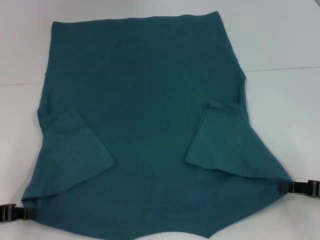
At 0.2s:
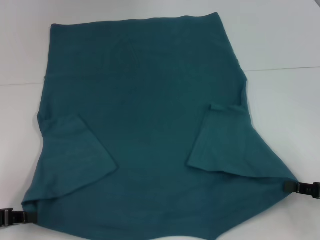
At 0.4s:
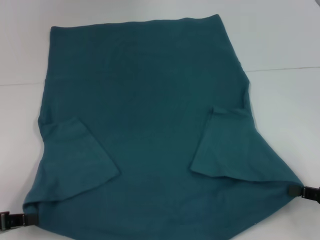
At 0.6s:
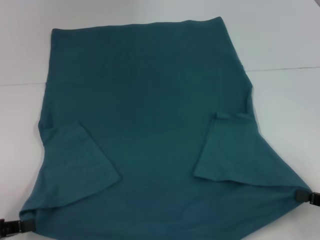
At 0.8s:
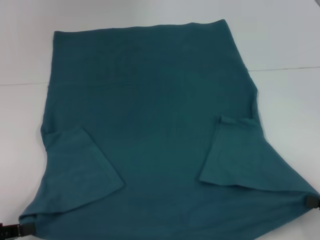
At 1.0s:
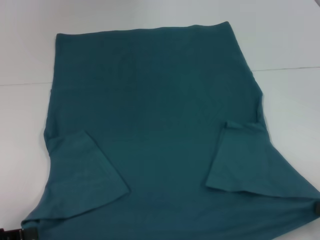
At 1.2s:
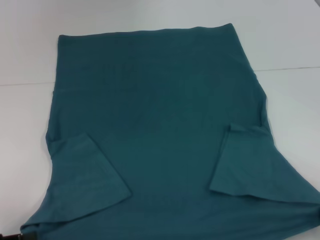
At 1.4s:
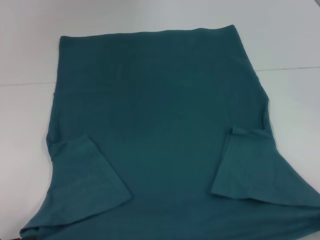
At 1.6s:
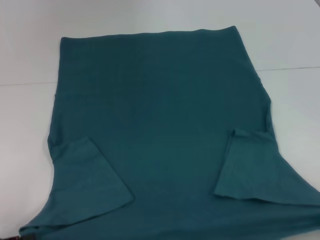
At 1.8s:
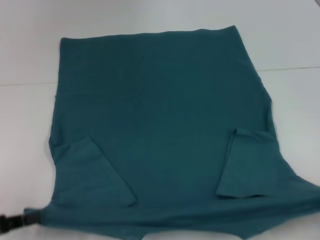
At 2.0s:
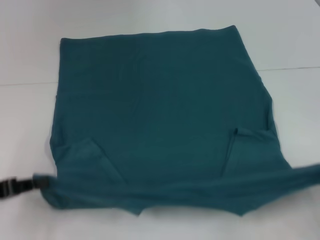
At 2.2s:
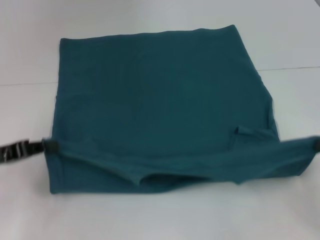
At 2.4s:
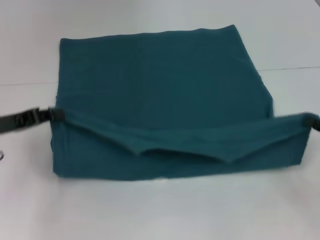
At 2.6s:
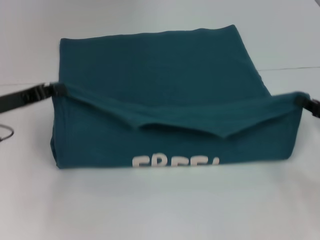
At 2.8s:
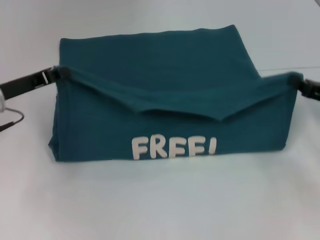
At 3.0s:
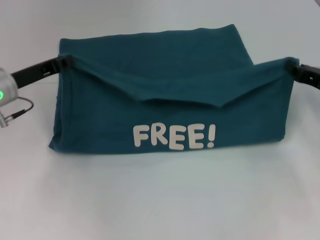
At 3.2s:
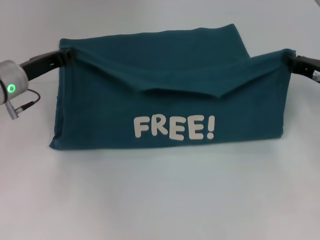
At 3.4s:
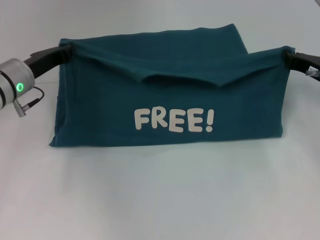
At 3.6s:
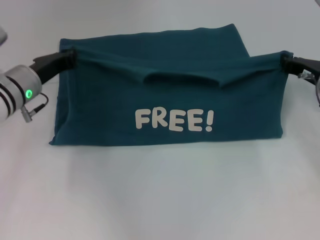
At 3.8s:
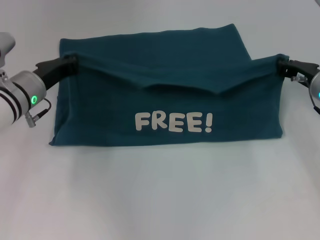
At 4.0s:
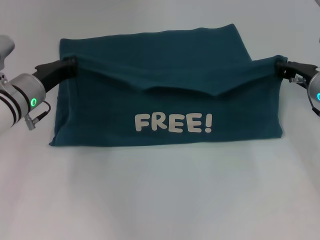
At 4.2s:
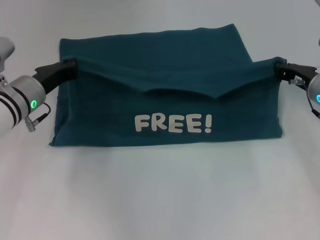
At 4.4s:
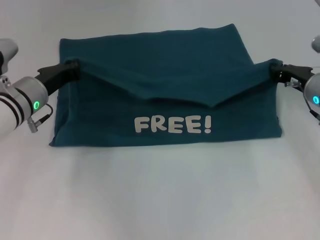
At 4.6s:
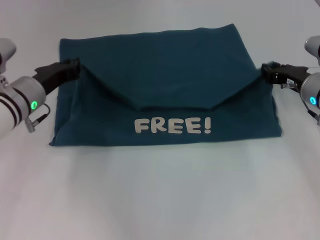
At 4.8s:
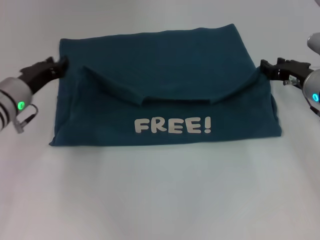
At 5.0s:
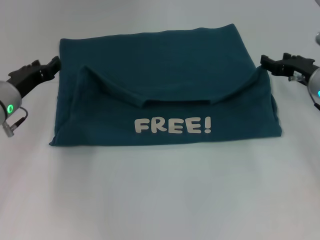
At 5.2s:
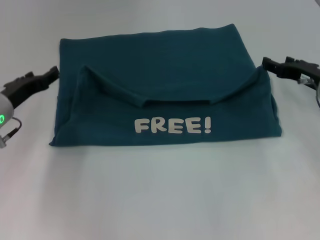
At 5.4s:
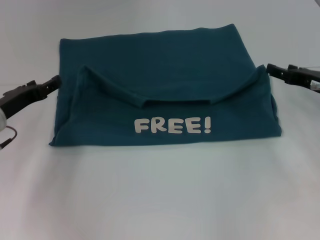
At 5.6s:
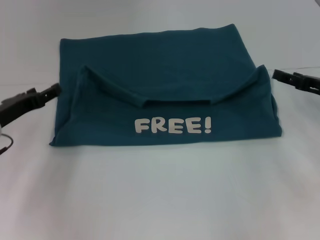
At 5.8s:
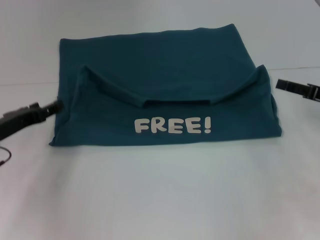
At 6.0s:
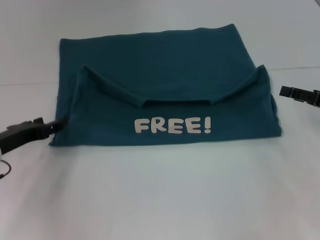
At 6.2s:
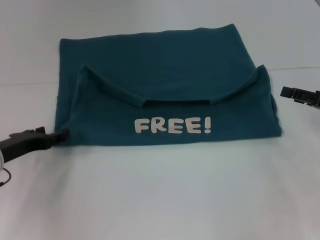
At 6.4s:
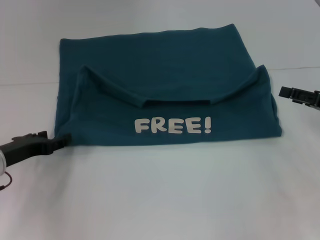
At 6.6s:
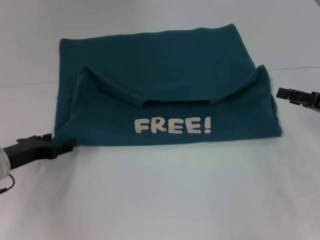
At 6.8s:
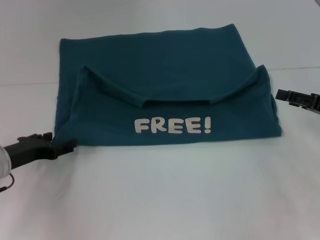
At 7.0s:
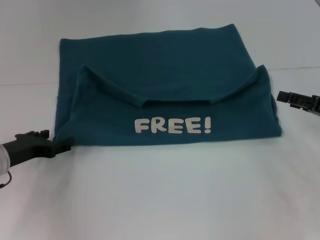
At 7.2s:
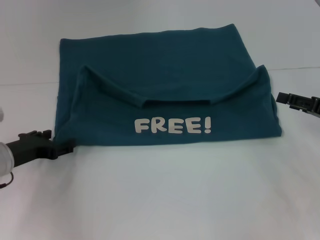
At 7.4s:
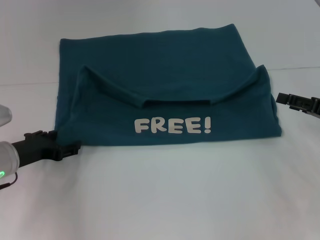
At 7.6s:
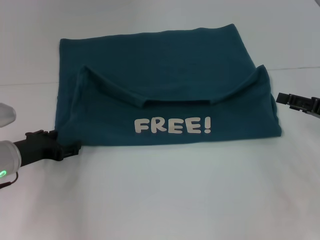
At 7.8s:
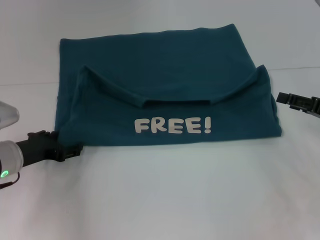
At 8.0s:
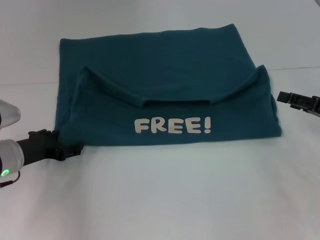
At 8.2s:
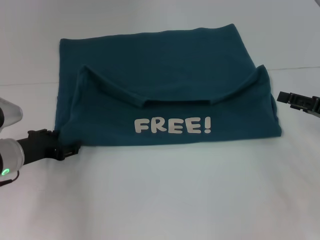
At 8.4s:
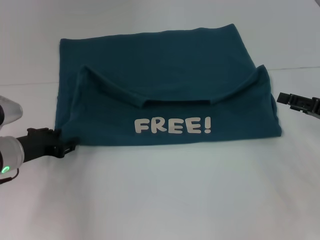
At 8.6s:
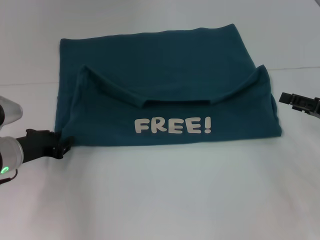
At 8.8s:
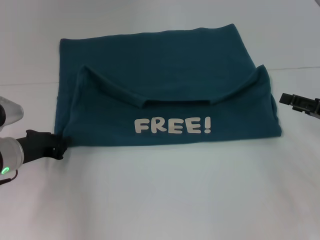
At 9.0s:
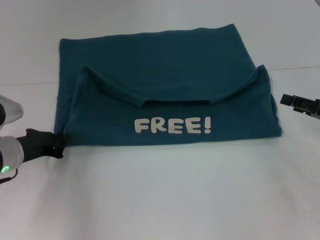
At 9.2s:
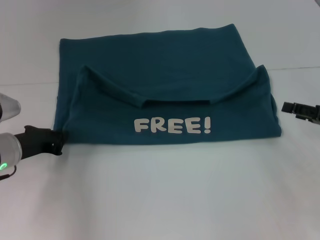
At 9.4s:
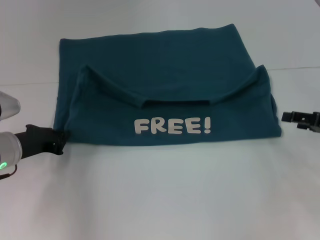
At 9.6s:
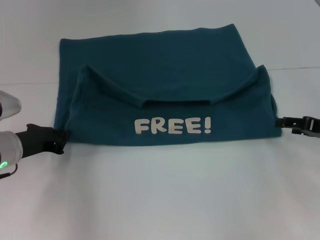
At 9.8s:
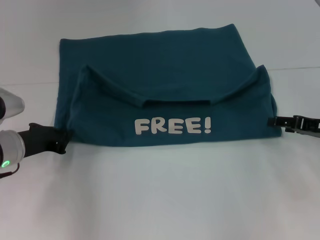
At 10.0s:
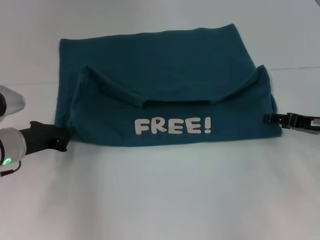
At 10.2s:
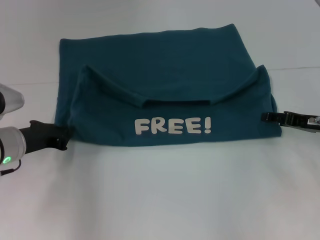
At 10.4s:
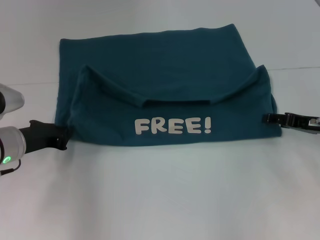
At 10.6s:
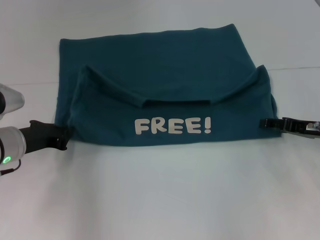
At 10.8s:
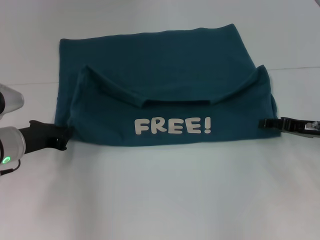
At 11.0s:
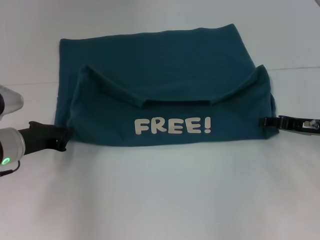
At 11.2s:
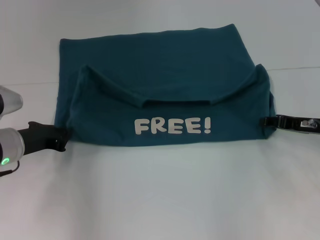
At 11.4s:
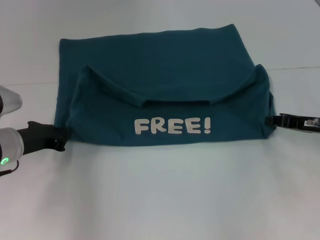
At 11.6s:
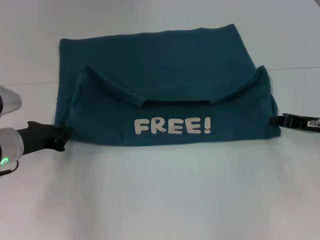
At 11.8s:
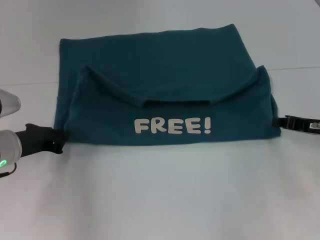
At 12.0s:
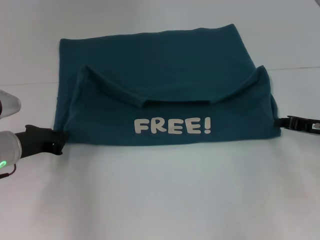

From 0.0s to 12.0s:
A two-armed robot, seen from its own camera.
Step, from 0.0s to 4.8s: Fold the clothes to the left.
Step, from 0.0s to 4.8s: Fold the clothes to the right.
From 0.0s to 1.6s: Both grippers move backward, some 10 cm.
From 1.6s to 3.0s: The left gripper travels forward and to the right by approximately 25 cm. The right gripper moves forward, about 25 cm.
From 3.0s to 4.4s: The right gripper changes place by approximately 5 cm, while the left gripper moves some 5 cm.
From 4.4s to 6.0s: The right gripper is displaced backward and to the right by roughly 10 cm, and opens up. Meanwhile the left gripper shifts approximately 10 cm backward and to the left, and opens up.
From 7.6s to 9.0s: The left gripper closes its fingers.
From 9.0s to 10.4s: The right gripper moves some 5 cm.
From 10.4s to 12.0s: The right gripper closes up.

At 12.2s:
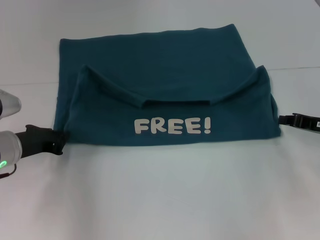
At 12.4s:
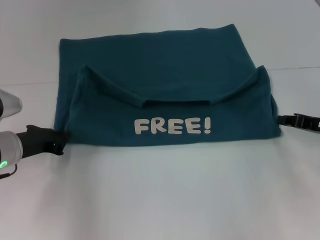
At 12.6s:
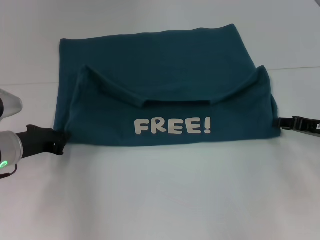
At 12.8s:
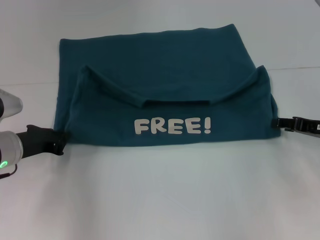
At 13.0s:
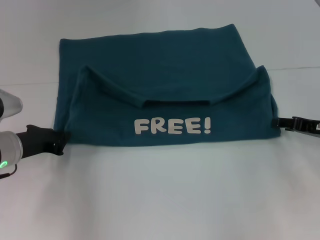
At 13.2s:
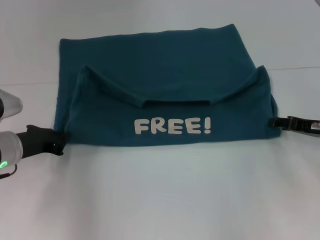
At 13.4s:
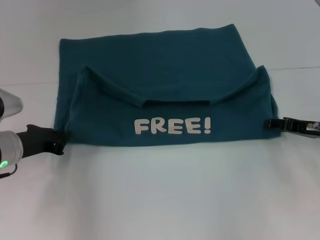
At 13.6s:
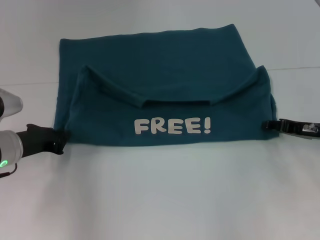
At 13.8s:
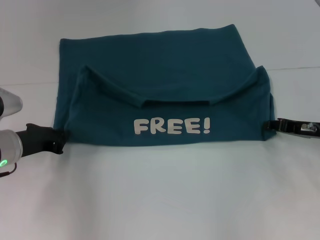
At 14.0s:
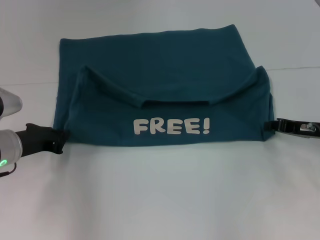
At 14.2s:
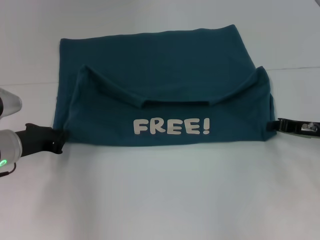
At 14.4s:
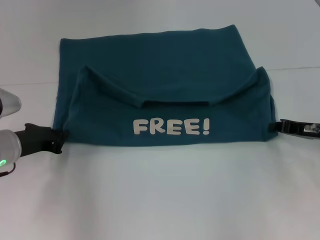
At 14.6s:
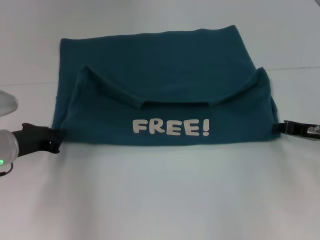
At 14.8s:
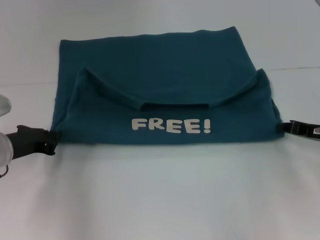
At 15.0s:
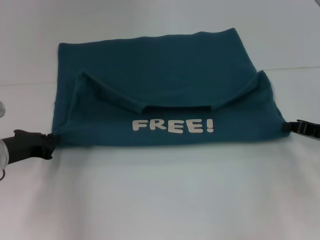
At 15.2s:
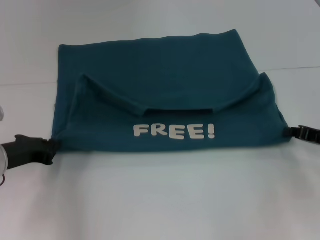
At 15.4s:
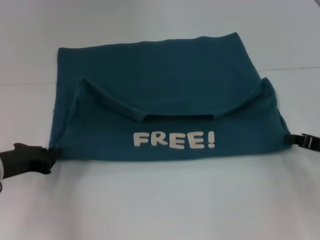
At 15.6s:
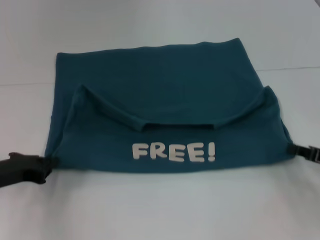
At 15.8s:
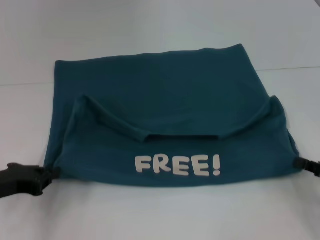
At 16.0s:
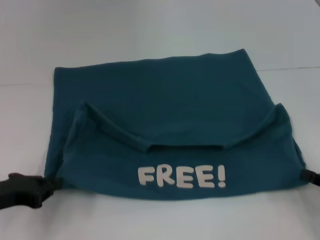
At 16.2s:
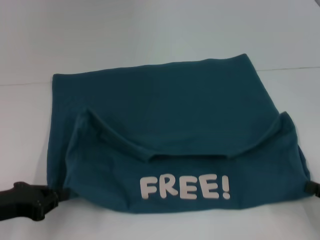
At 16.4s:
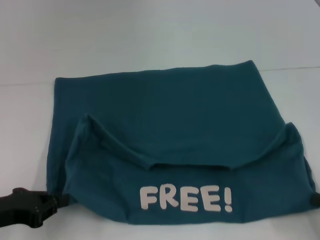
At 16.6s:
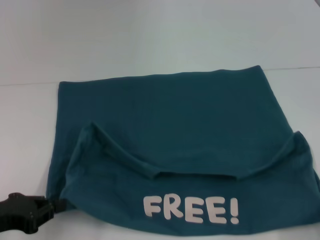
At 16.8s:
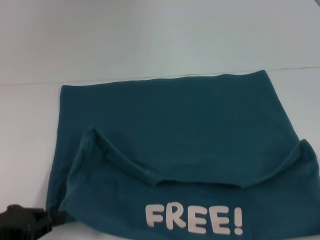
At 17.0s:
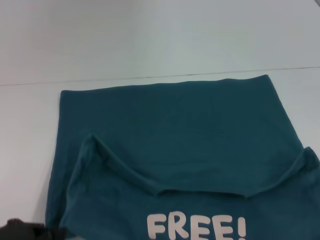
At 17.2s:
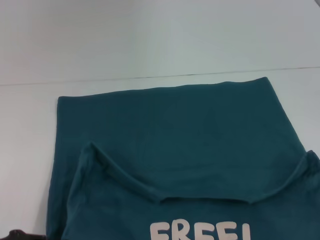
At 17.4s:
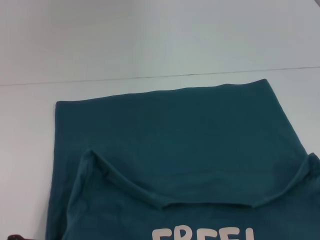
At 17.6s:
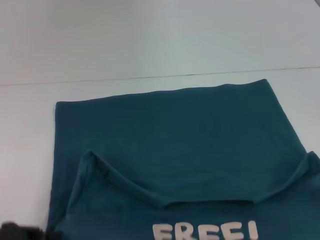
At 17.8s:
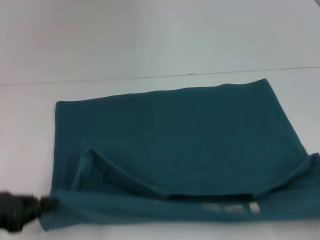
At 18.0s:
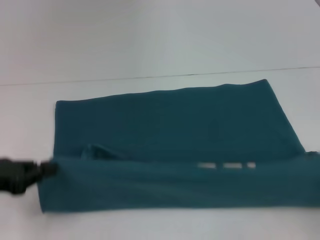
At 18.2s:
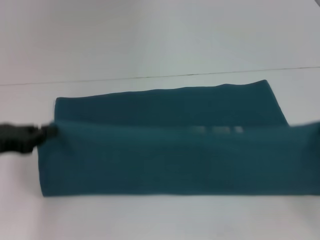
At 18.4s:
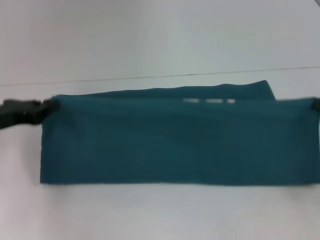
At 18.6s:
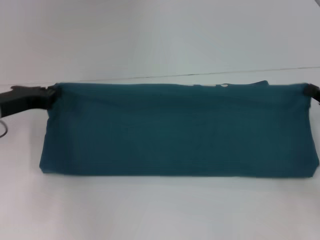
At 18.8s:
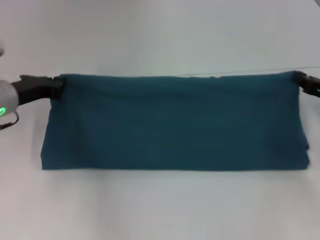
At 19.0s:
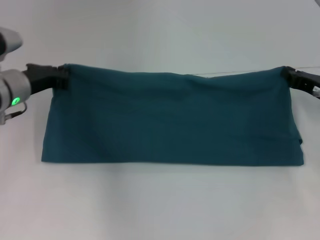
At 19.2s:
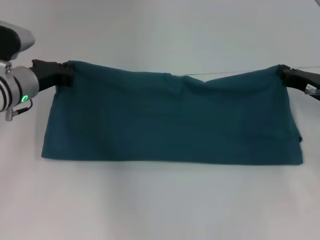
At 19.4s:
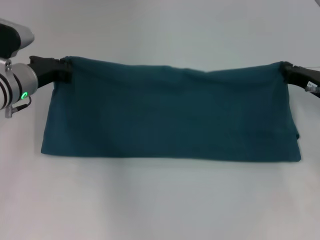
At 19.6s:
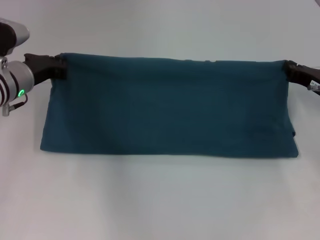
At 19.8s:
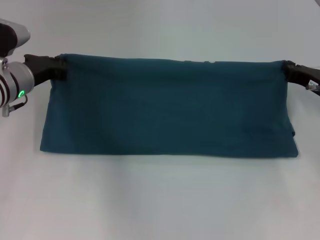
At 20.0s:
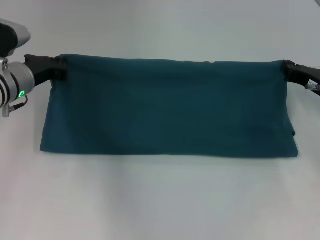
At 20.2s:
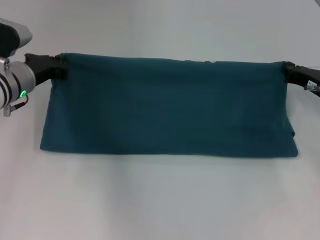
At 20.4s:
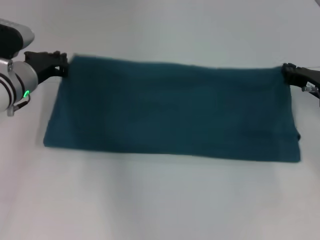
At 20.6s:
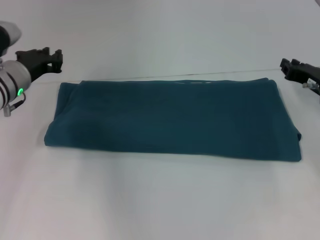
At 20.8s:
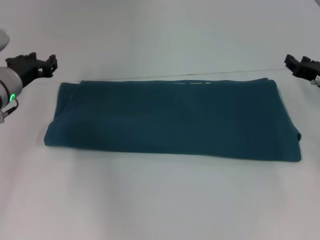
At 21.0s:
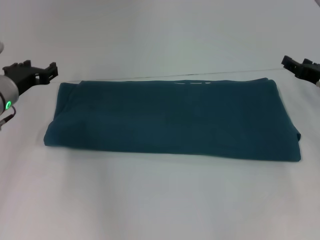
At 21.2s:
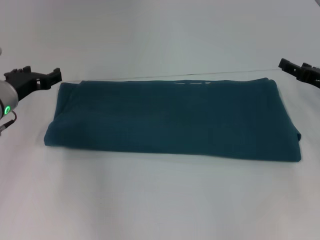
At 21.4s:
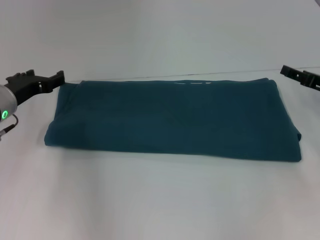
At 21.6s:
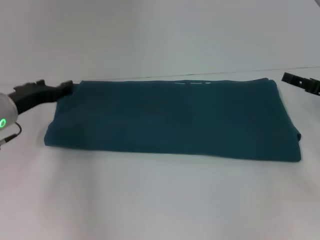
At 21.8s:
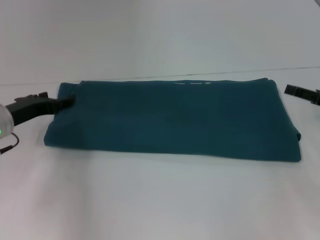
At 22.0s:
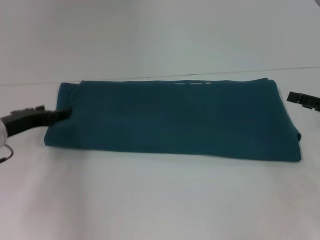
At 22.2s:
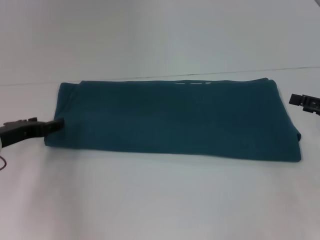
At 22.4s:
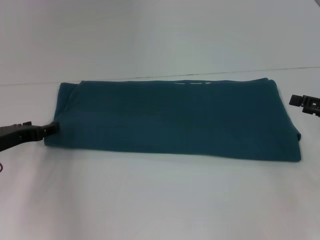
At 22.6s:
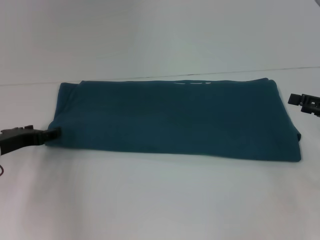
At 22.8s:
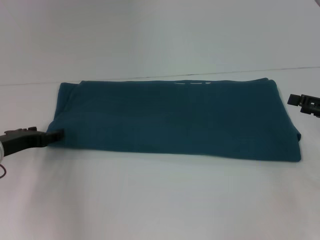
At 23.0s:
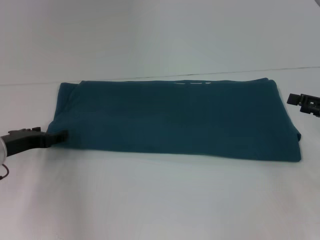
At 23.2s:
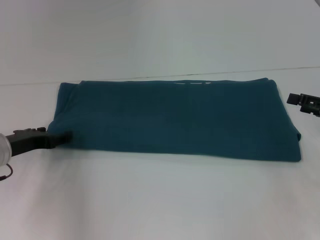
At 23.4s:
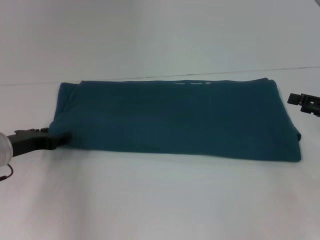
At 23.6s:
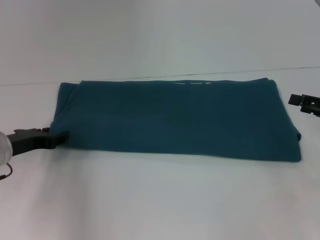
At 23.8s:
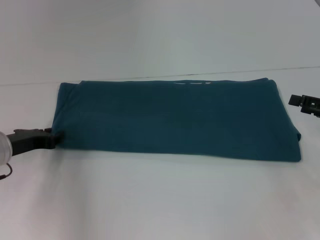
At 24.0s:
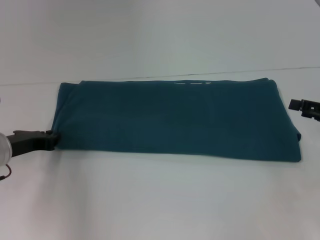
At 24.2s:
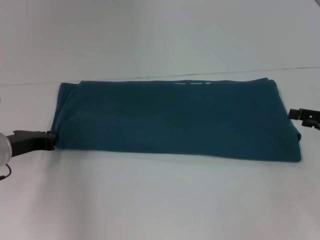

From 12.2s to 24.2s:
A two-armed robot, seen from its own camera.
Step, from 12.2s to 17.2s: Pull the clothes with your left hand.
Step, from 12.2s to 17.2s: Pull the clothes with your right hand.
Step, from 17.4s to 20.4s: Fold the clothes to the right.
From 12.2s to 13.8s: The right gripper opens its fingers.
From 13.8s to 15.2s: The right gripper closes.
From 15.2s to 16.6s: The right gripper goes roughly 20 cm backward; the left gripper is displaced backward by roughly 10 cm.
From 16.6s to 18.2s: The two grippers go roughly 10 cm forward.
From 18.2s to 19.8s: The left gripper moves forward and to the right, roughly 15 cm, while the right gripper is displaced forward and to the left by about 15 cm.
From 19.8s to 21.2s: The right gripper opens its fingers. Meanwhile the left gripper opens its fingers.
From 21.2s to 22.6s: Both grippers move backward, about 5 cm.
From 22.6s to 24.2s: The left gripper closes up.
